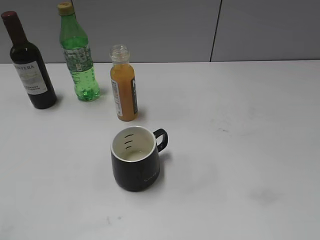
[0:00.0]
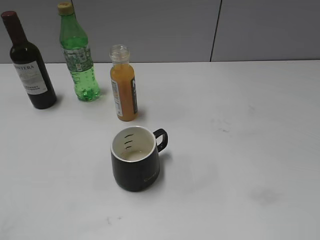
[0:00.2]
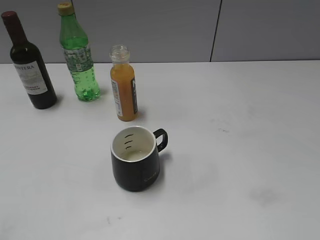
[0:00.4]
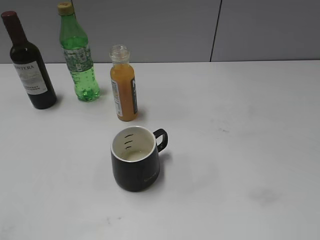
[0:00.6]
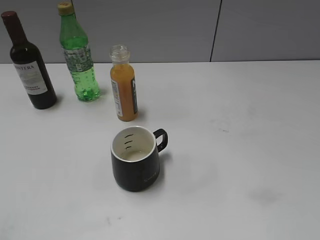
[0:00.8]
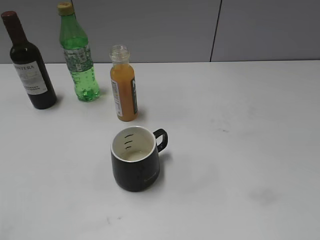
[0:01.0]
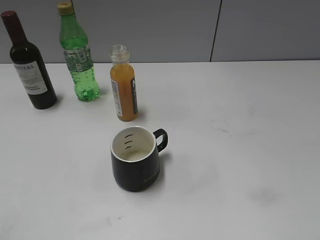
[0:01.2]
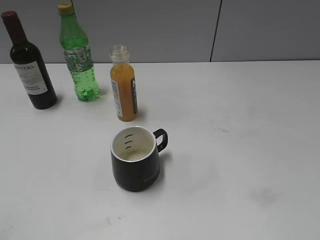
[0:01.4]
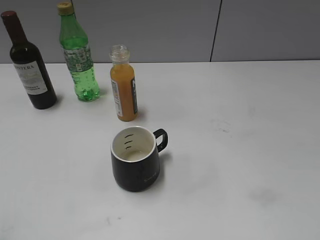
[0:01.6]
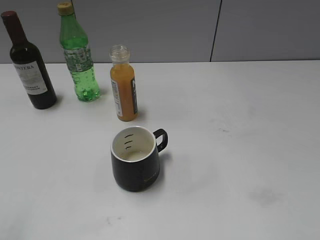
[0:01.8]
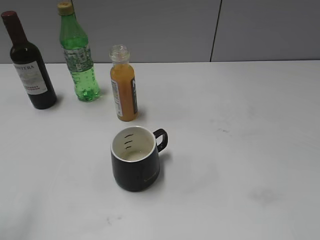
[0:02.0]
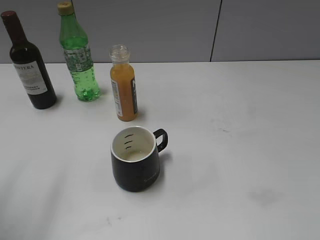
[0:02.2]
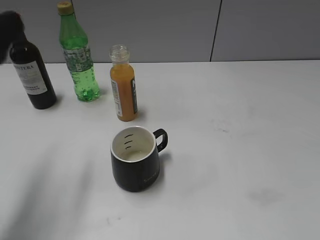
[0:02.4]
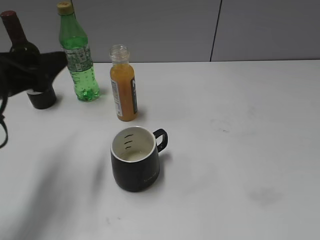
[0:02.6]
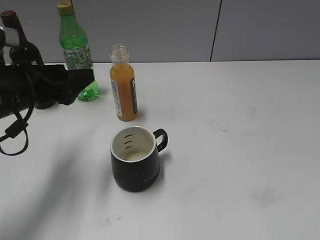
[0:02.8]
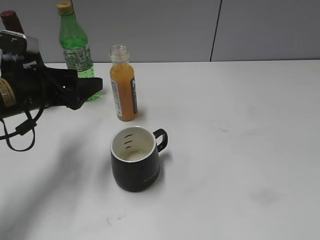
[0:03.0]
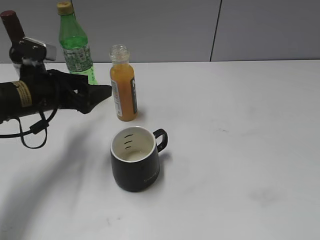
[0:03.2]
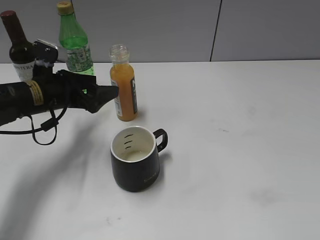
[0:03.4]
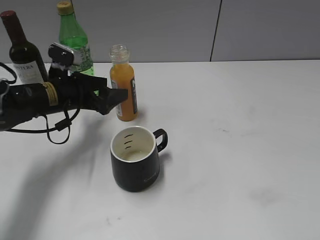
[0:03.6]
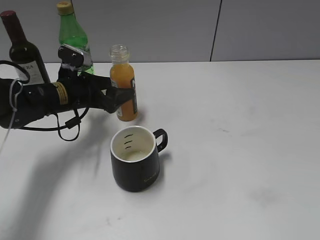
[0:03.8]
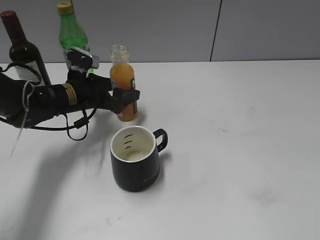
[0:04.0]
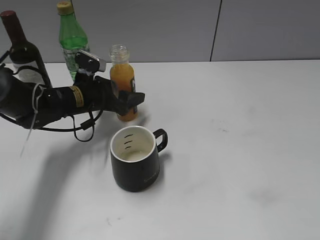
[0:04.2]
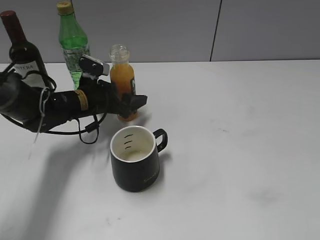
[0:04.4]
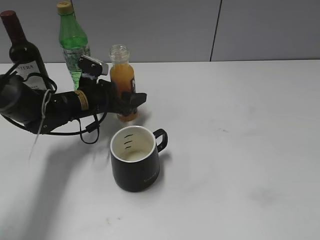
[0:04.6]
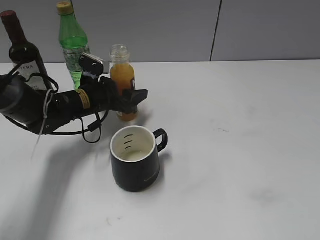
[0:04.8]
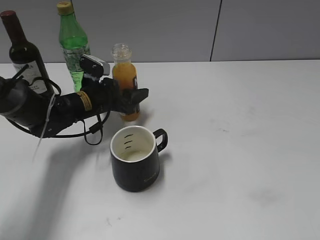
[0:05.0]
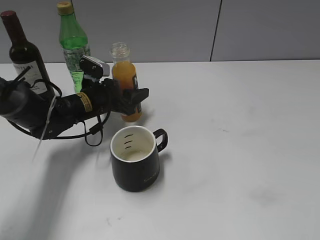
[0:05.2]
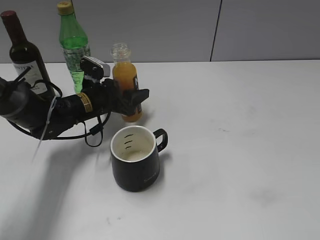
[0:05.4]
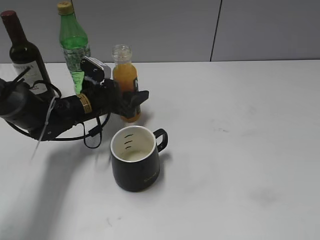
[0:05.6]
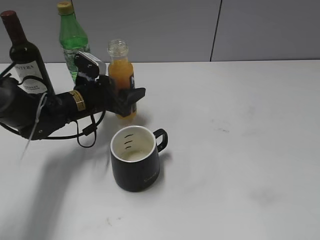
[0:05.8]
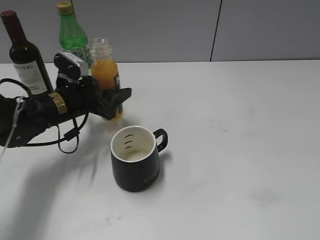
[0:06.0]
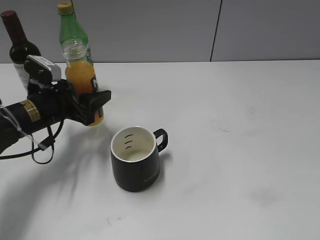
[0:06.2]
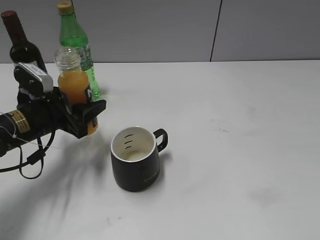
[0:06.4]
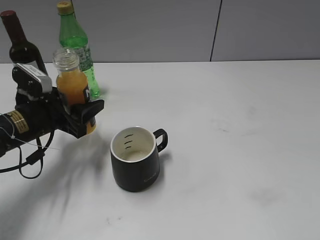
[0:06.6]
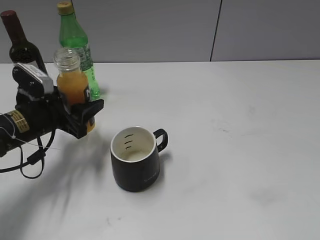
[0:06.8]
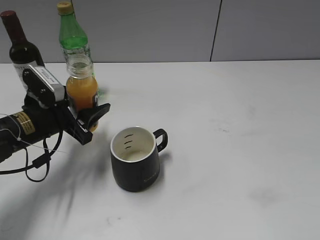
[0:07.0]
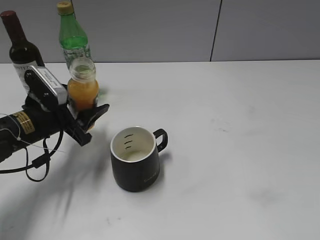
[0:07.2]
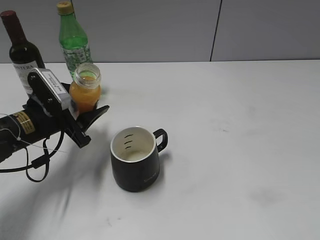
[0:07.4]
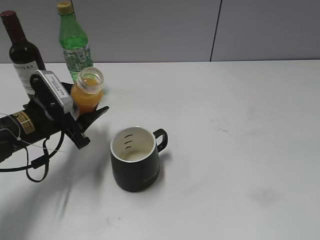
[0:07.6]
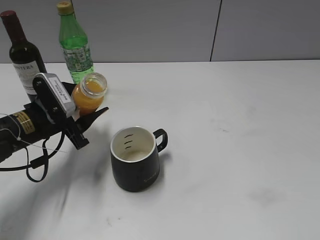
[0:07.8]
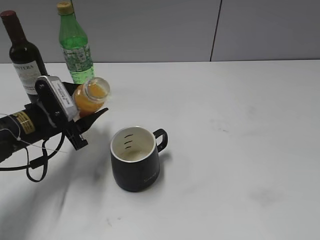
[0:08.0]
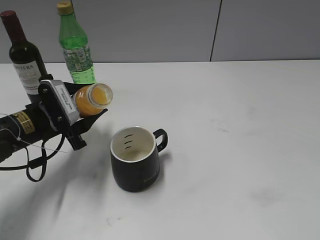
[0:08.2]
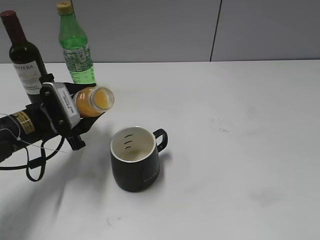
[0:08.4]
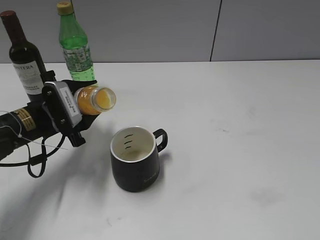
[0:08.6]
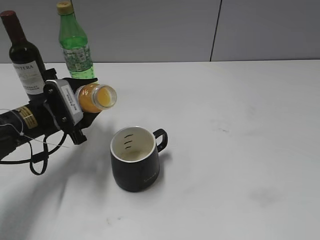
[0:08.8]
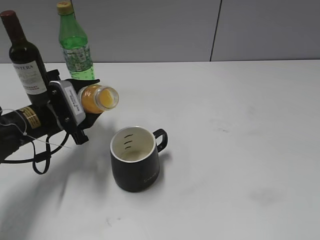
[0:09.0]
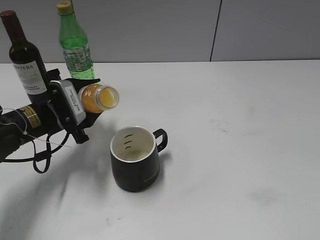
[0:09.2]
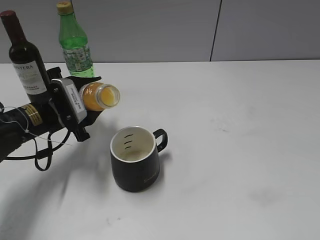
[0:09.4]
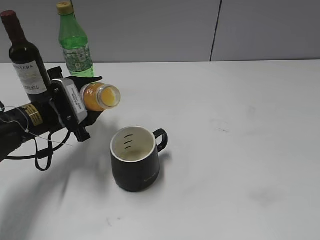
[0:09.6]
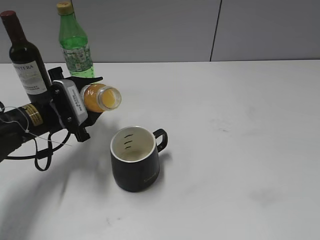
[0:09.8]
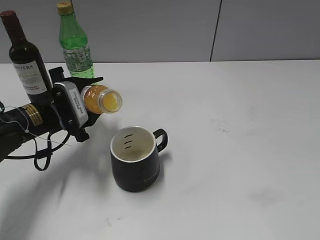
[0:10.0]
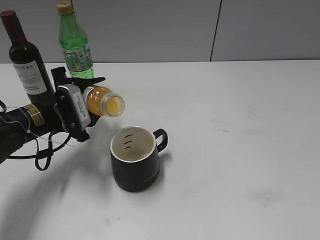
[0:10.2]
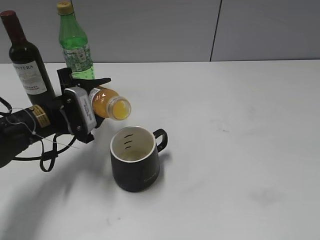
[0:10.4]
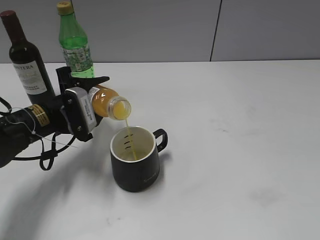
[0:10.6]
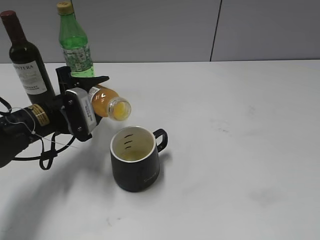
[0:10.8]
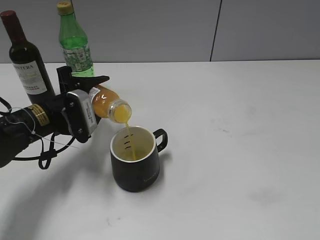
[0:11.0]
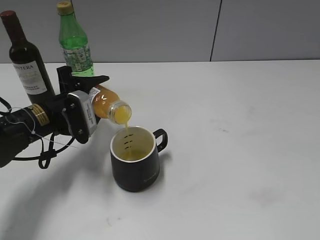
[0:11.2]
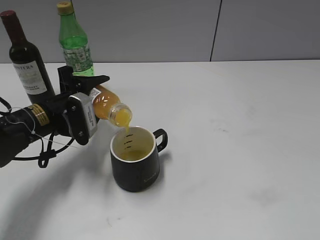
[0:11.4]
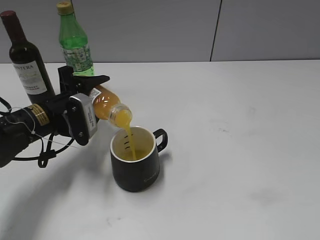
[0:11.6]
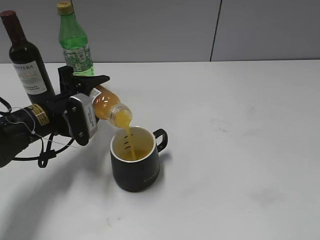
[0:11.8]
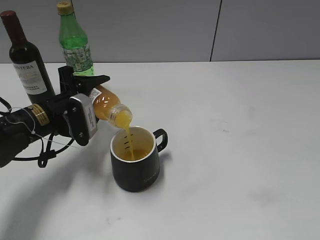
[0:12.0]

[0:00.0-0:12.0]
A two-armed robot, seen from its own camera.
Step, 0:00.0 to 0:05.0: Grasp the bottle with orange juice with left gripper.
0:01.6 to 0:03.0: The left gripper moves forward and downward, roughly 30 cm.
0:03.0 to 0:04.4: The left gripper heads forward, downward and to the right, covering approximately 15 cm.
0:04.4 to 0:06.0: The left gripper closes up.
0:06.0 to 0:07.6: The left gripper travels backward by about 5 cm.
0:09.0 to 0:10.4: The grippers stay close to where they were, moving slightly.
0:10.4 to 0:12.0: The grippers move only a little.

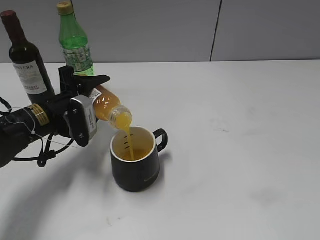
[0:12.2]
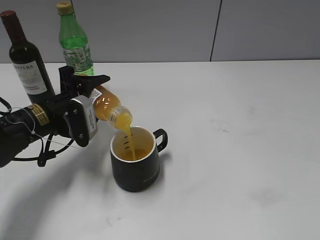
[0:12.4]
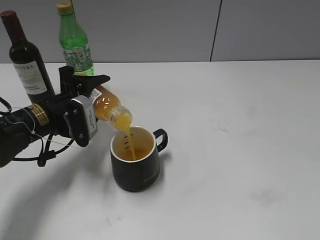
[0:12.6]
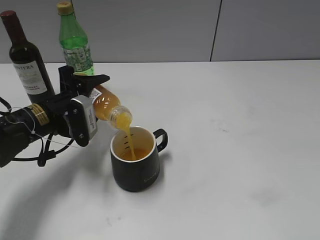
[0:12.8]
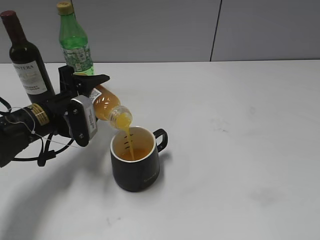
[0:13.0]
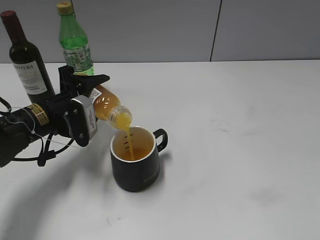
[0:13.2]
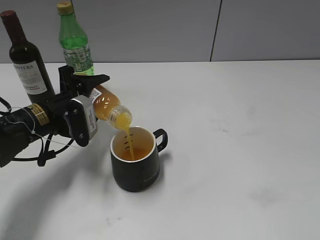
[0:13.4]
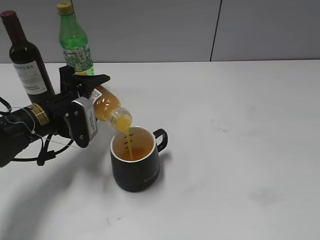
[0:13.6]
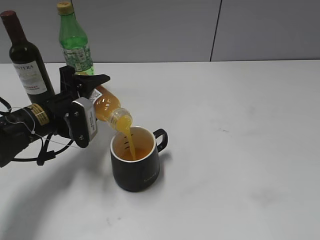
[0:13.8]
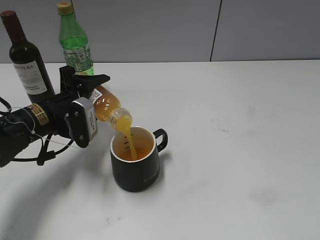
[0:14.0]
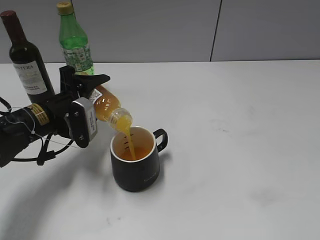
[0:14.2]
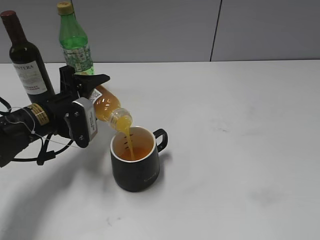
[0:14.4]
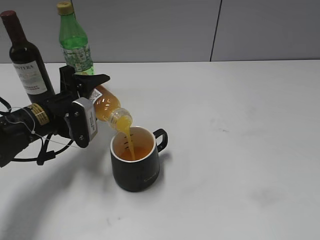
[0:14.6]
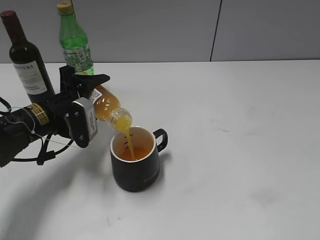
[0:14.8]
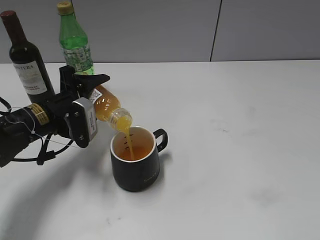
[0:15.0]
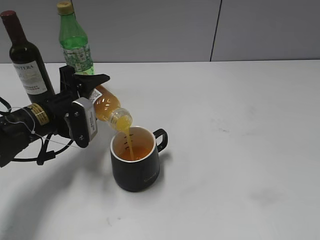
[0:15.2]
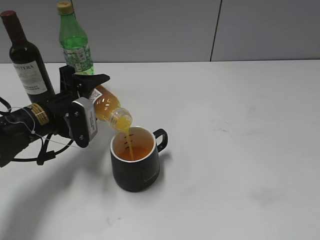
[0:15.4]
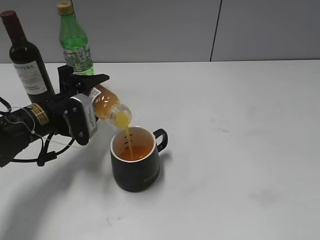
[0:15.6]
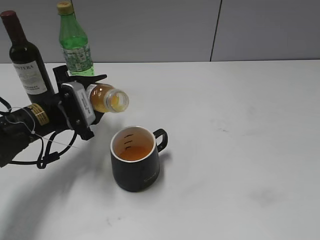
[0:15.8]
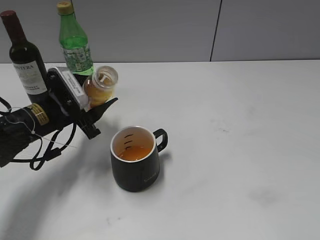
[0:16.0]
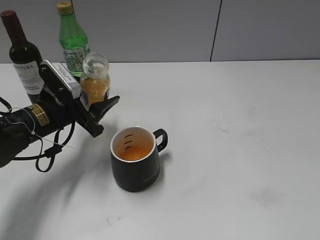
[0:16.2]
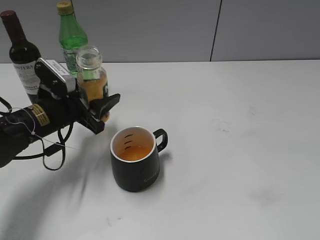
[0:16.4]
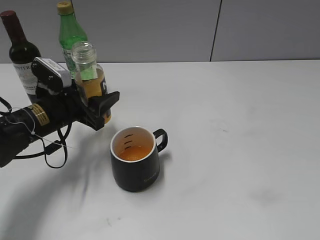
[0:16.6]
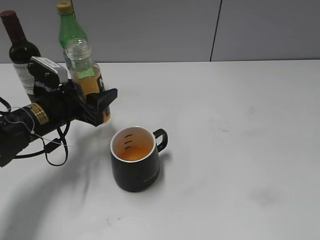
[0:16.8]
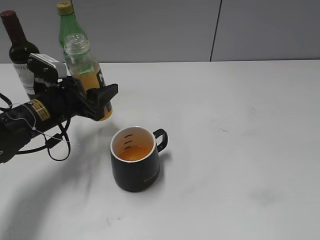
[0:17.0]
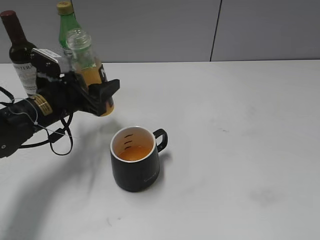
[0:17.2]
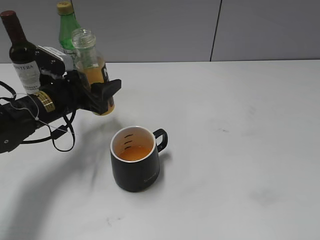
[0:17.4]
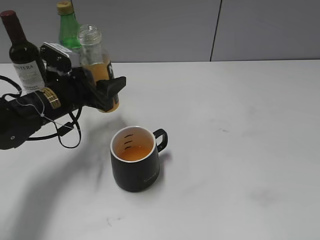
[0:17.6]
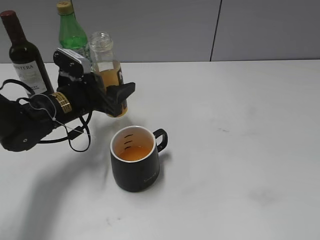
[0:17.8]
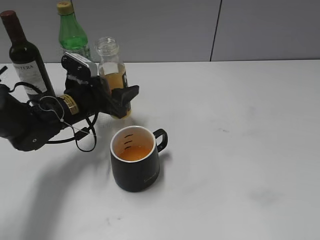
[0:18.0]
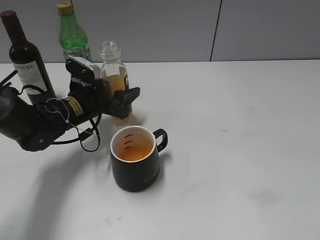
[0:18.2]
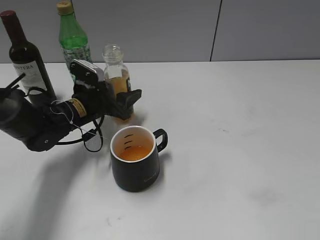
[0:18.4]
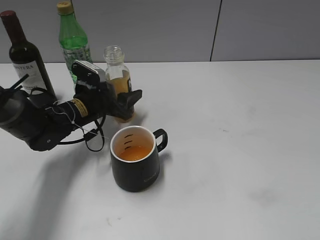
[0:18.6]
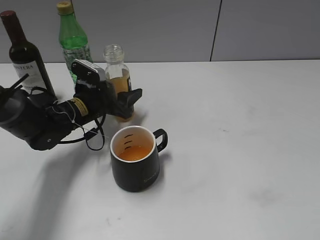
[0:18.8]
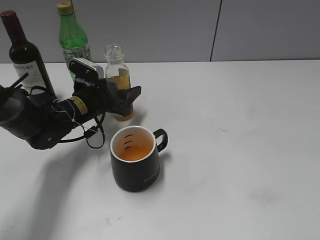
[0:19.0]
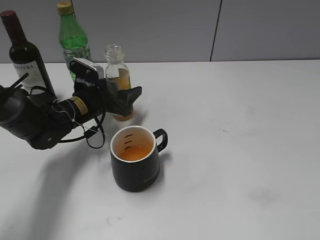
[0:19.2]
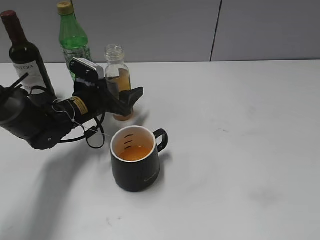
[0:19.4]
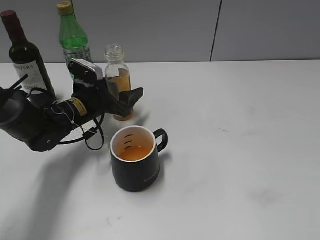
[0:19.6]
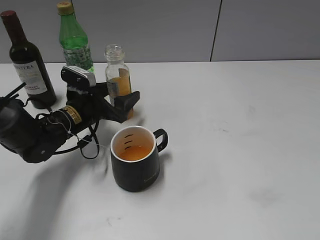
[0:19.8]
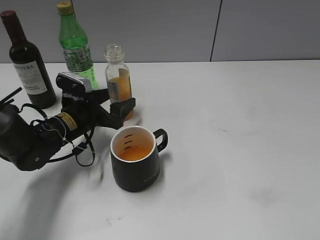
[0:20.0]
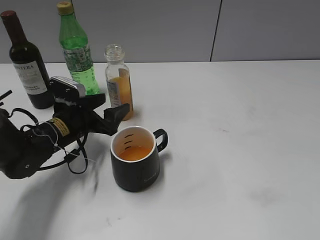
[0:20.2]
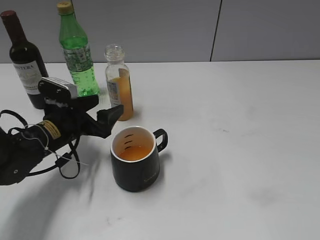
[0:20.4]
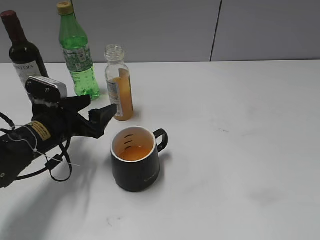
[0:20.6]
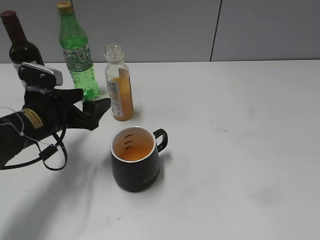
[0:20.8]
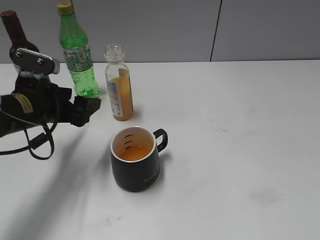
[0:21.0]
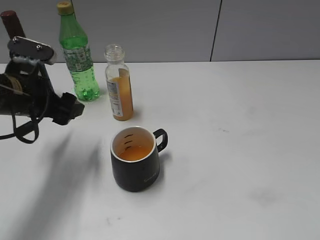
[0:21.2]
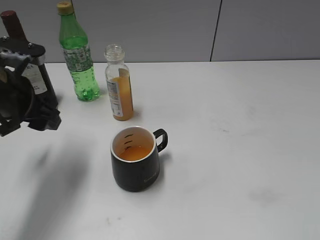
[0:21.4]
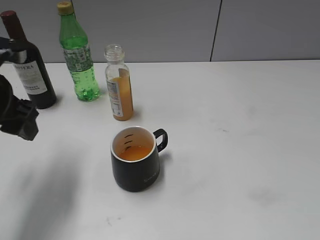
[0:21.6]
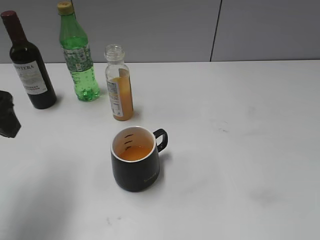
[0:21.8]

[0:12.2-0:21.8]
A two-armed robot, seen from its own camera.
Step, 0:12.2 to 0:15.6: Pour the orange juice from bottle to cup with left gripper.
Step, 0:16.0 to 0:19.4: Place the orange juice bottle on the table with left gripper.
0:12.2 to 0:15.4: Both grippers stay about where they are.
0:17.0 to 0:18.6: The left gripper moves forward, some 5 cm.
0:18.6 to 0:20.2: The left gripper shifts by about 5 cm, and opens up.
0:20.2 to 0:21.8: The left gripper shifts about 25 cm upward and backward.

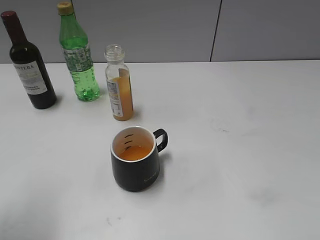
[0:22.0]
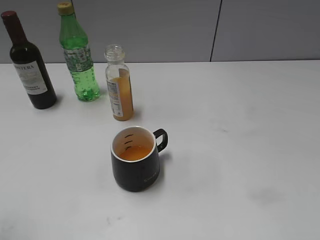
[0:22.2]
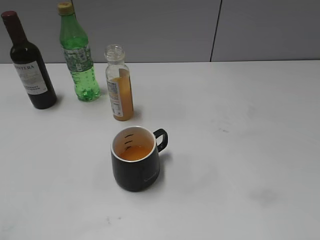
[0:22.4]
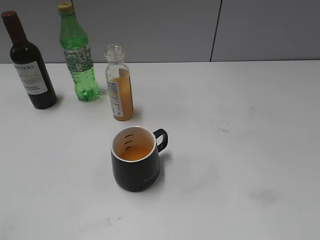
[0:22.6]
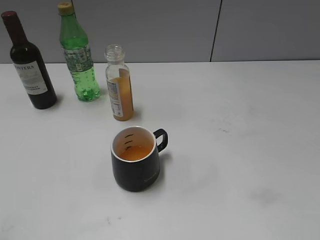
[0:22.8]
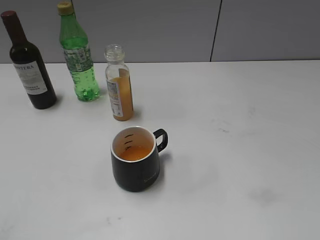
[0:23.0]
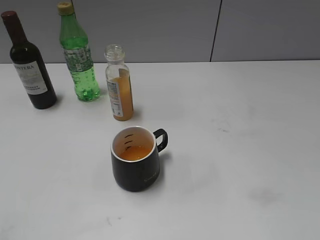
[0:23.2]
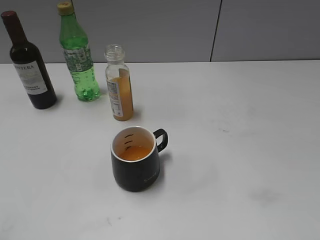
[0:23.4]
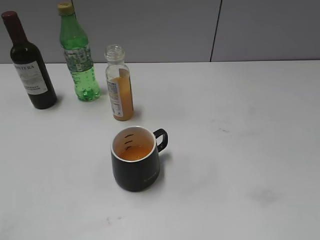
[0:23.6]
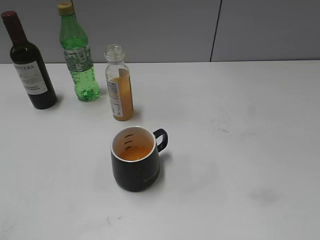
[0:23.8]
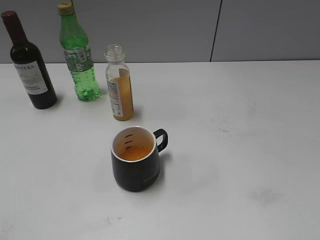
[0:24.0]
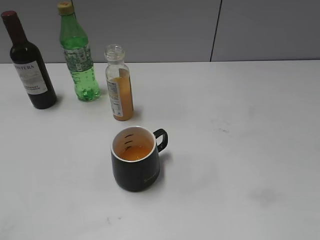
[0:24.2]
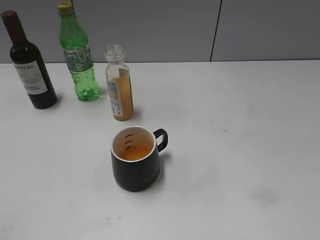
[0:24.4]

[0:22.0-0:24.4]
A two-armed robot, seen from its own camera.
0:22.0 to 0:23.2: The left gripper heads backward, covering approximately 15 cm.
